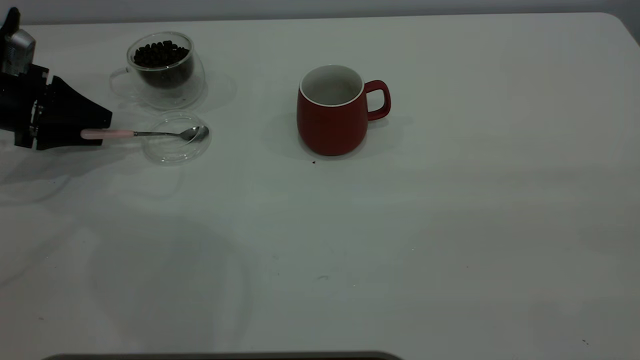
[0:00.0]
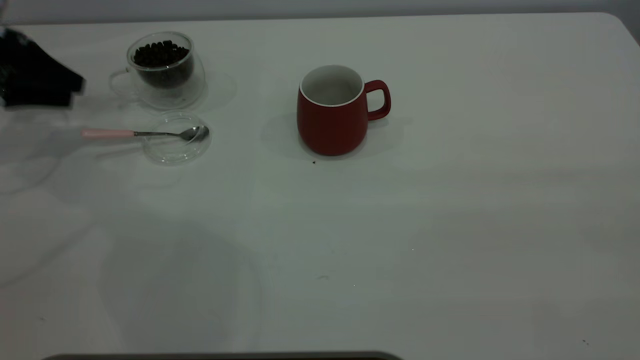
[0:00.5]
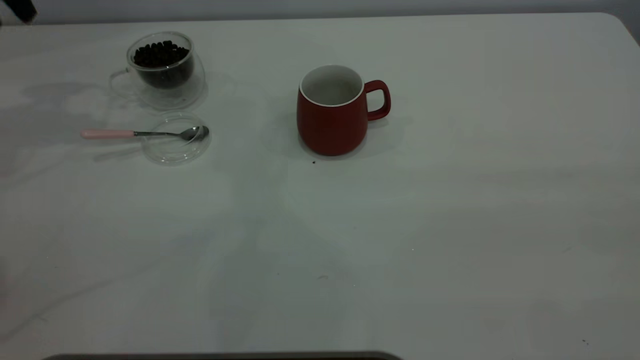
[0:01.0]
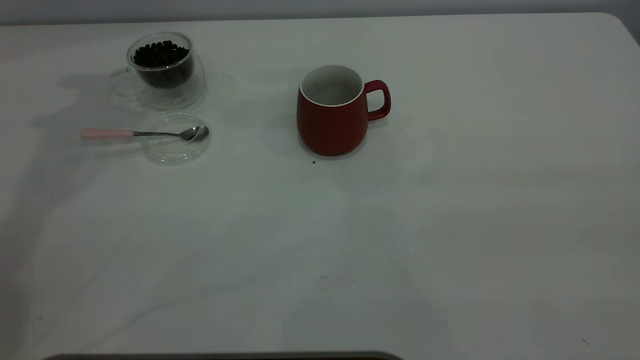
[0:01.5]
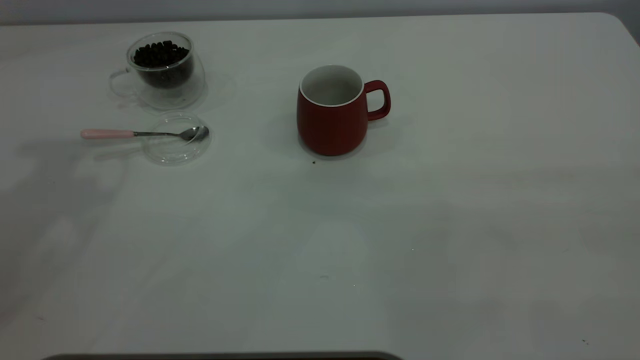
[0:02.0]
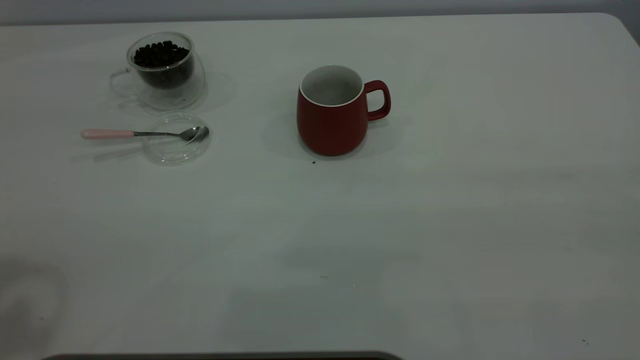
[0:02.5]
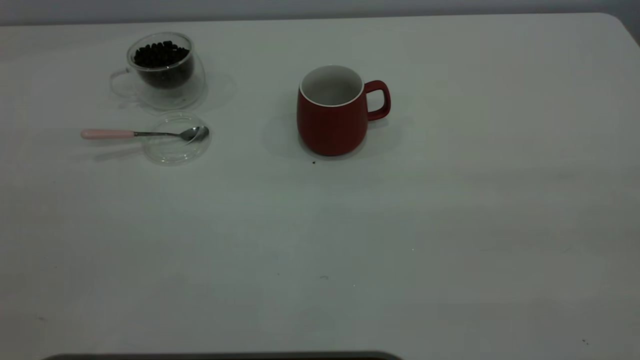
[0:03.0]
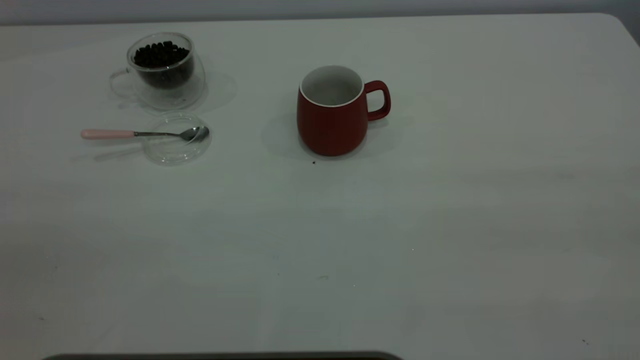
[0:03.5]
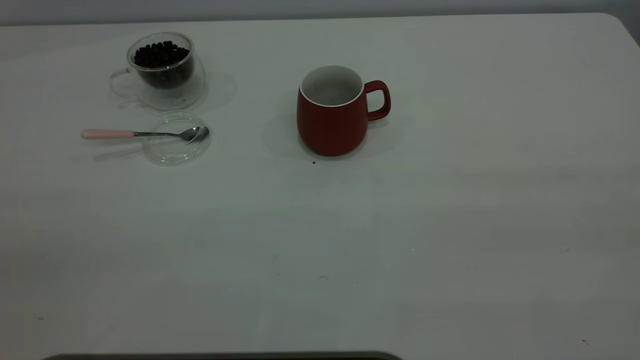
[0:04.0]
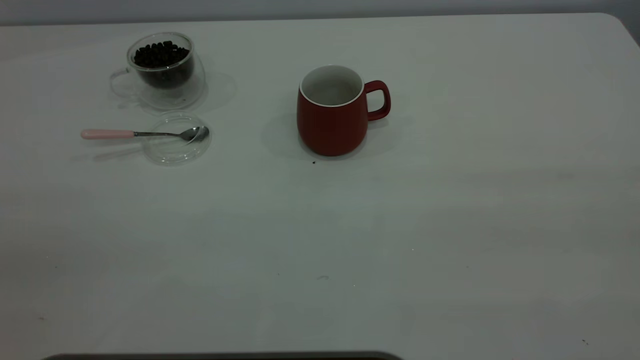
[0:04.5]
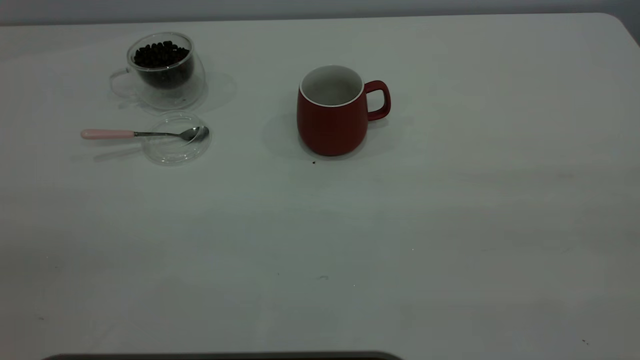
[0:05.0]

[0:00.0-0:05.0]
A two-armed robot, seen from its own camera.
Task of the whole recording: the right gripper place the red cup in the center of the table, the left gripper take the pink spoon from the cup lid and scoop out the coffee beans from the coffee cup and put them into the red cup, the left gripper put the spoon back into the cup lid.
0:00.0 to 0:02.5: The left gripper is displaced upward and backward by approximately 40 cm.

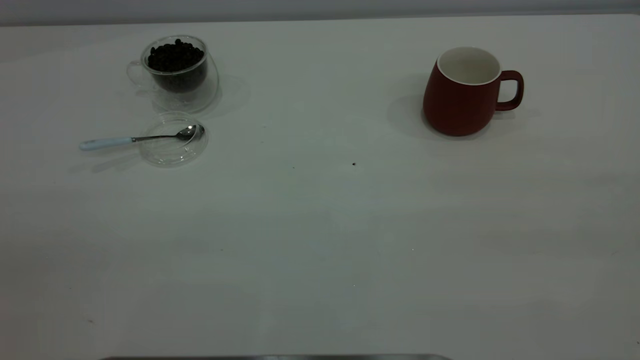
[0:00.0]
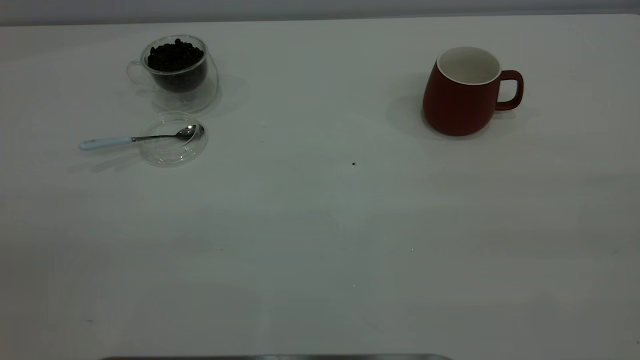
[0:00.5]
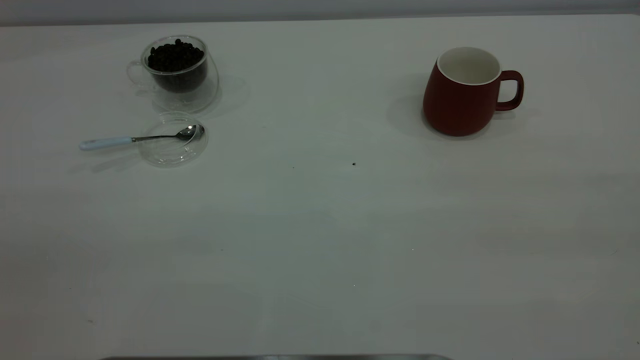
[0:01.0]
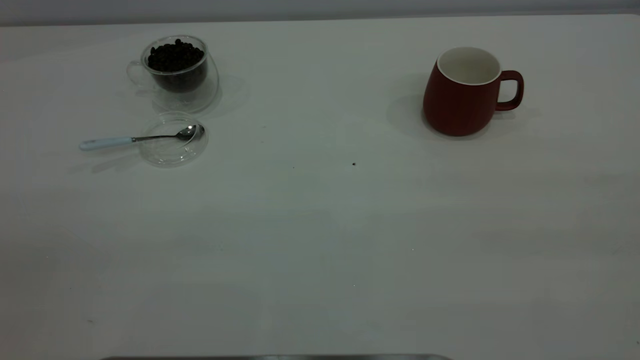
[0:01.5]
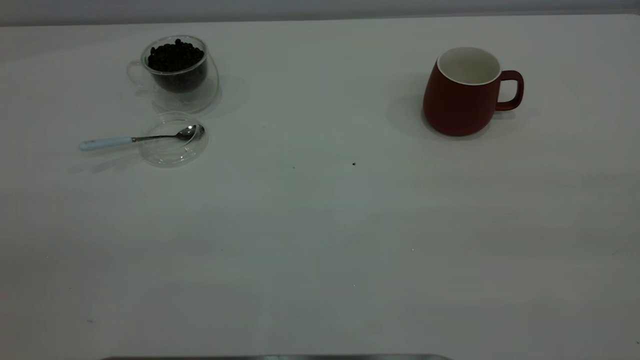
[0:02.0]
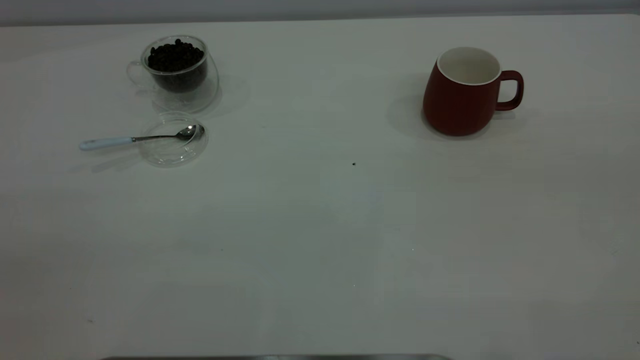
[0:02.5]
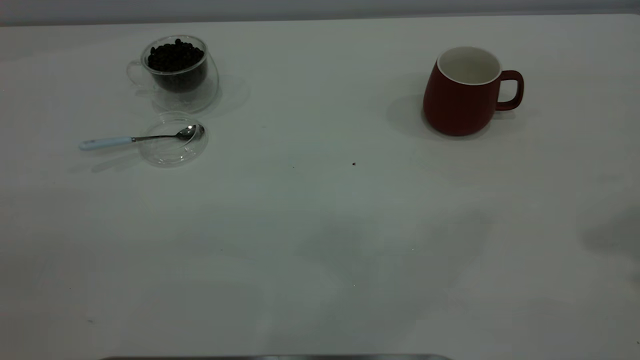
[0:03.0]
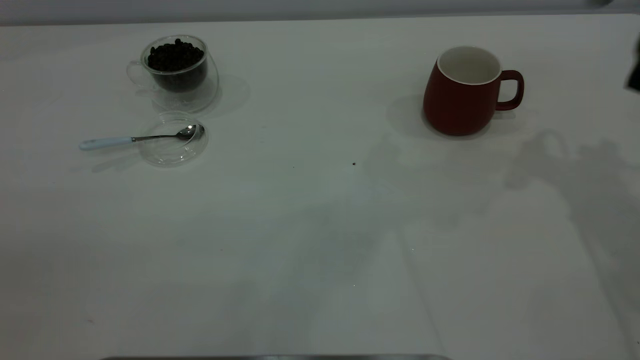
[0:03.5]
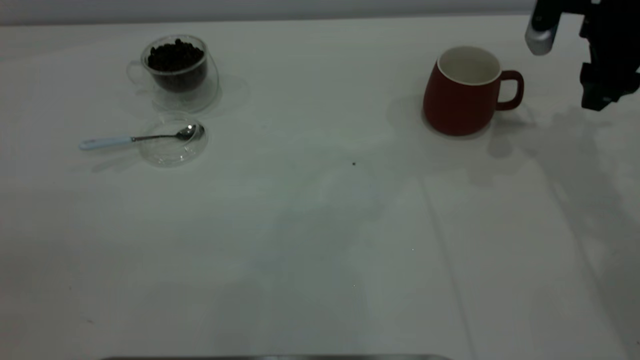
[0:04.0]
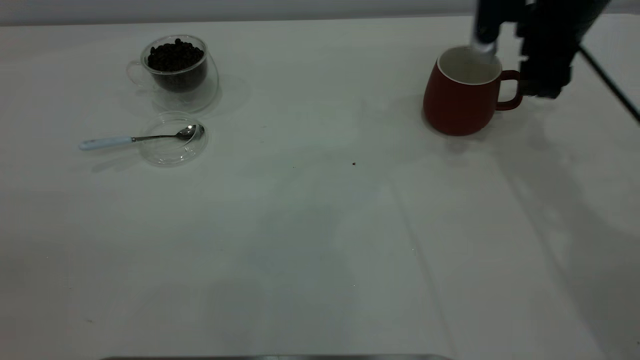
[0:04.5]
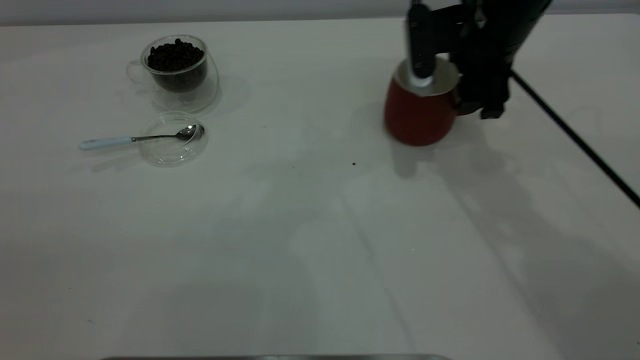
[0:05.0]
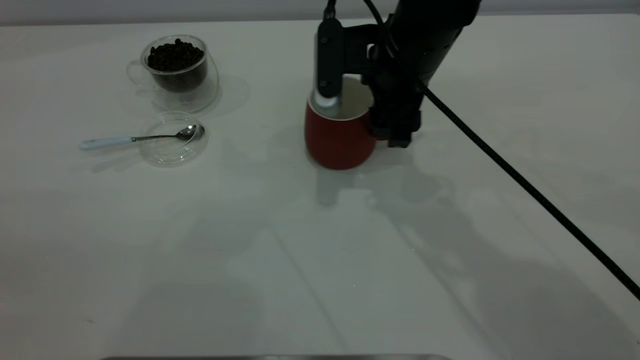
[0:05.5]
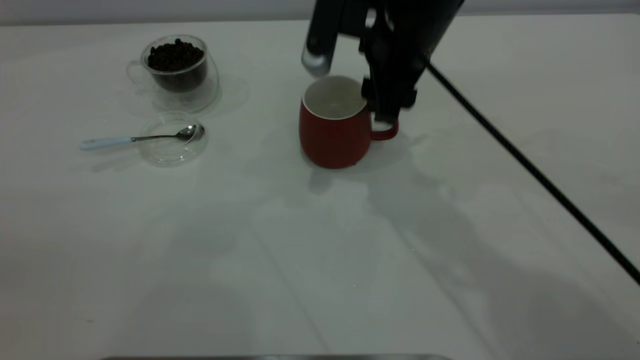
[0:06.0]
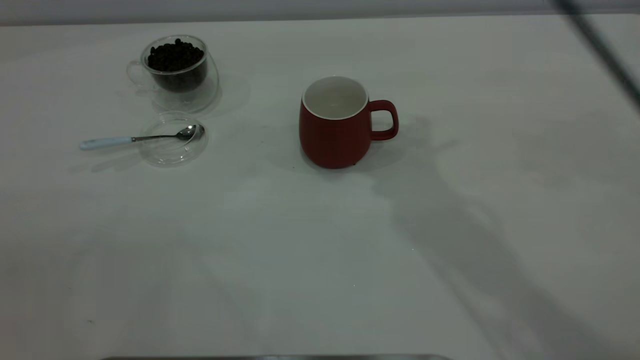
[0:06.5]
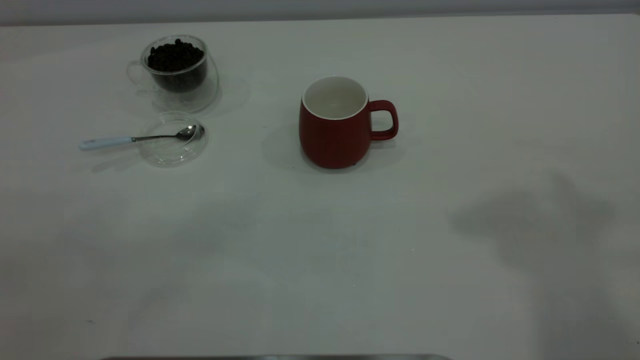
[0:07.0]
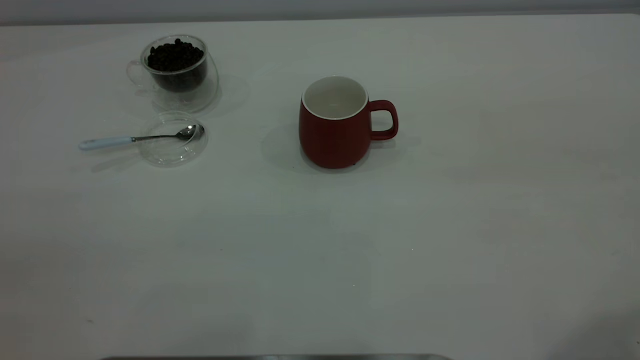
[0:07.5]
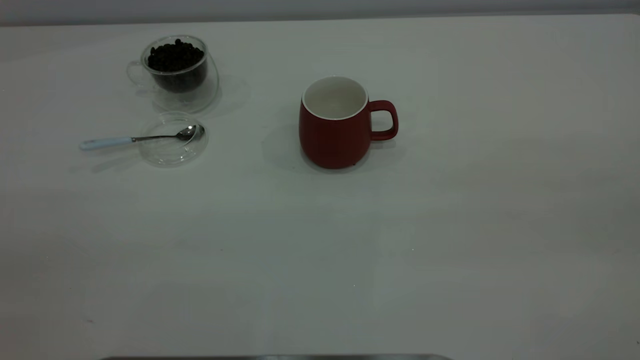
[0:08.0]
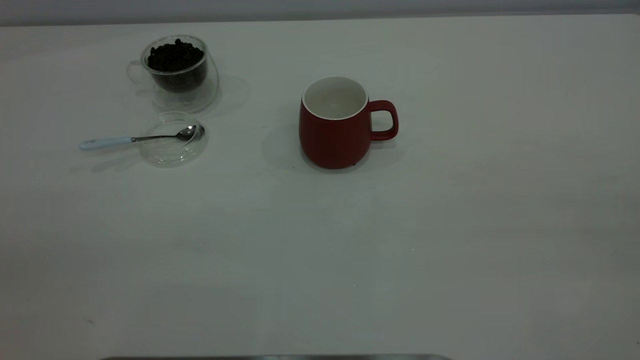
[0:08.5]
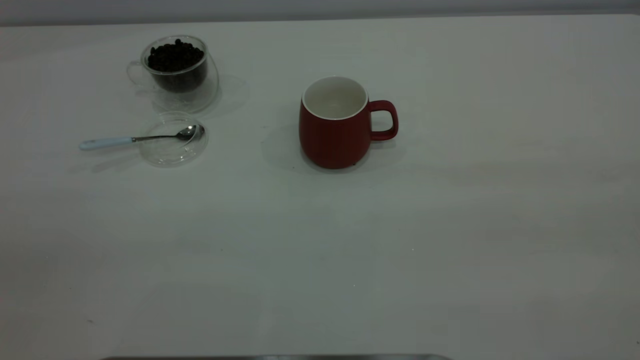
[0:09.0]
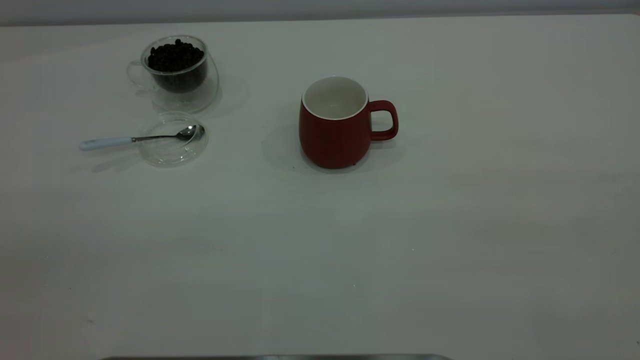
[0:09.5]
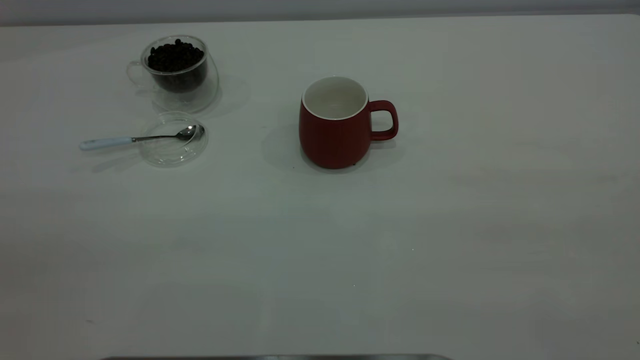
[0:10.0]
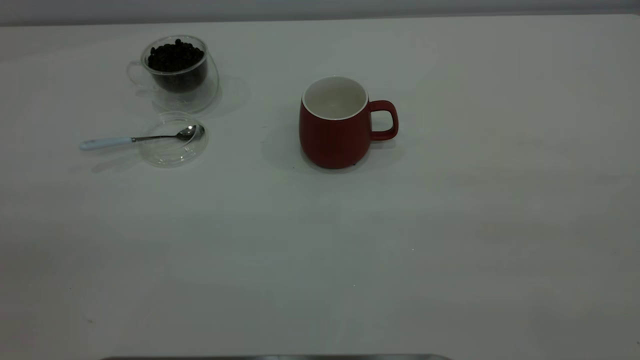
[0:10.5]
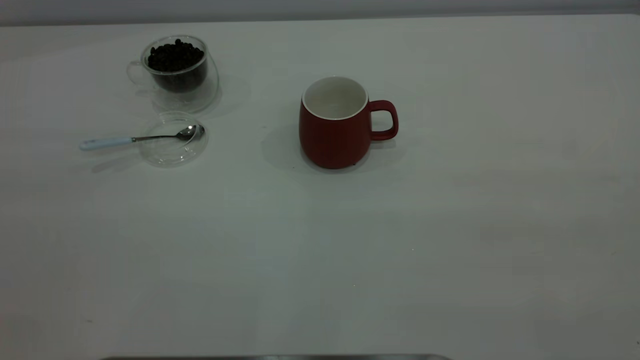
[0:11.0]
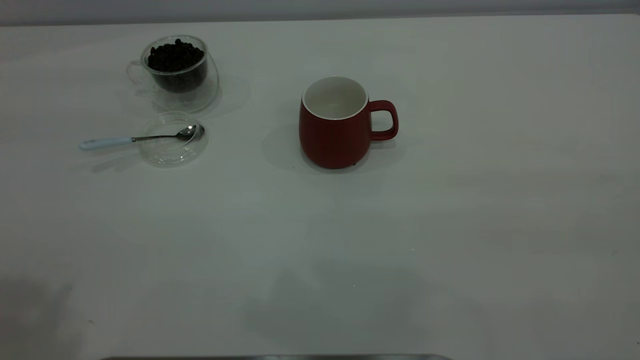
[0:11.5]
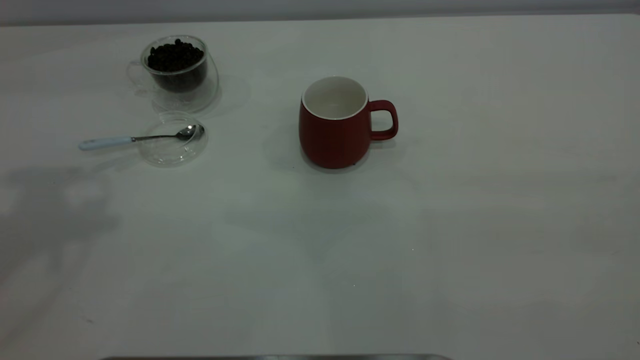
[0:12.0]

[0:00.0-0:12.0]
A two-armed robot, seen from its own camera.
Task of the whole recording: the right gripper place the red cup in the center of the table, the left gripper take the blue spoon from the cup lid and scoop out the coffee beans from the coffee cup and put them into the red cup, the left gripper put the spoon back into the cup lid.
Step, 0:00.0 to 0:06.0: Move the cup to the center of view.
0:00.0 to 0:02.0: Both grippers stay about where they are.
0:02.0 to 0:04.0: The right gripper shifts about 50 cm forward and downward, and opens.
0:04.0 to 0:06.0: The right gripper is displaced to the left by roughly 20 cm, and closes up.
0:06.0 to 0:08.0: The right gripper travels backward, to the right and upward by some 40 cm, and opens its fingers.

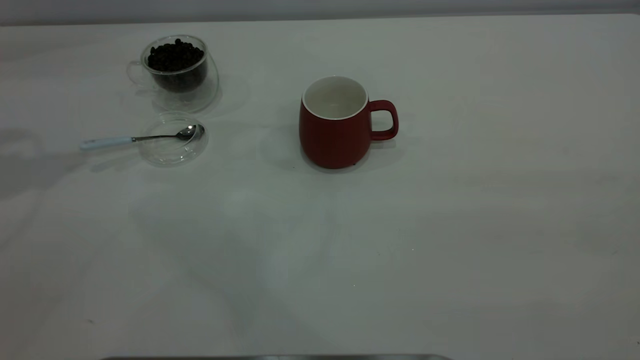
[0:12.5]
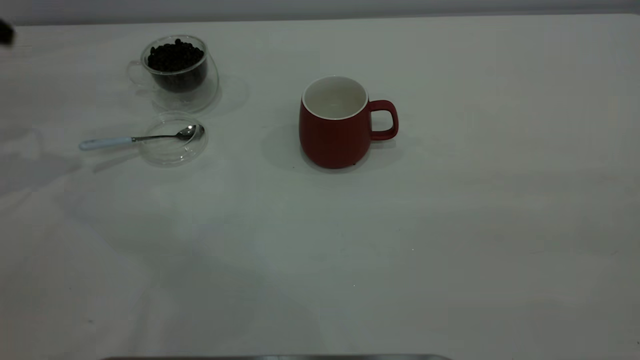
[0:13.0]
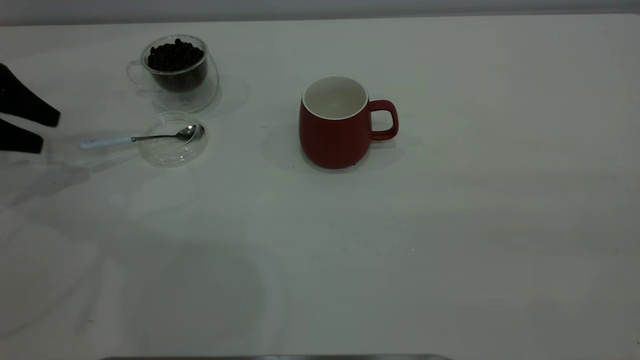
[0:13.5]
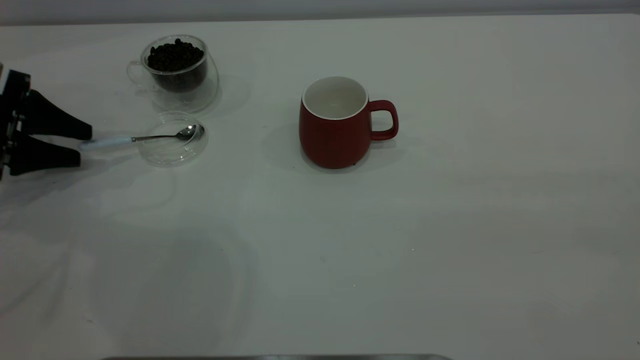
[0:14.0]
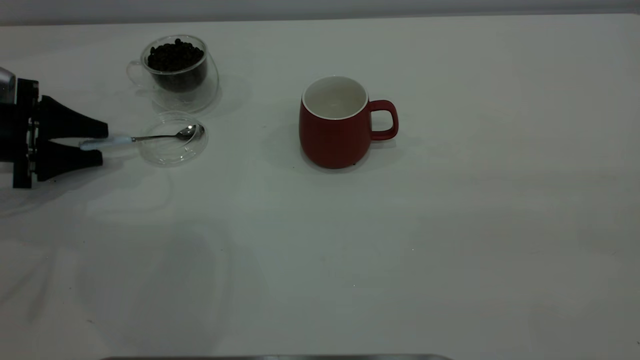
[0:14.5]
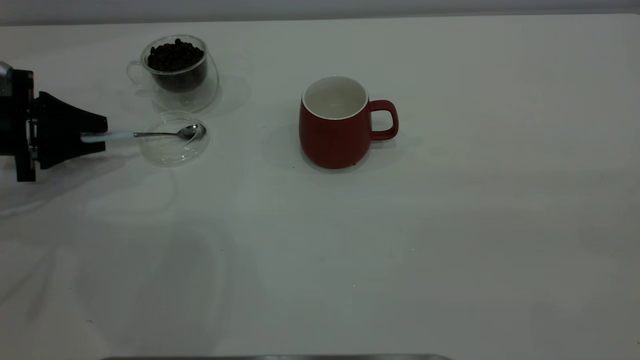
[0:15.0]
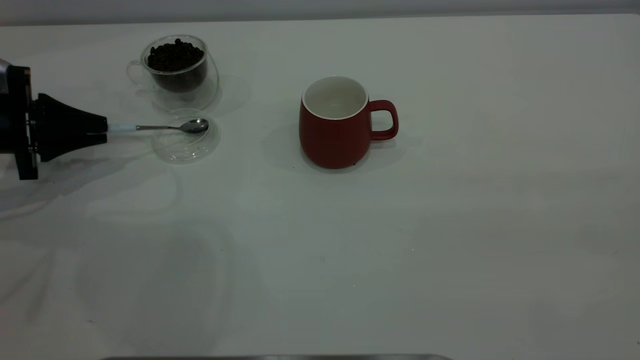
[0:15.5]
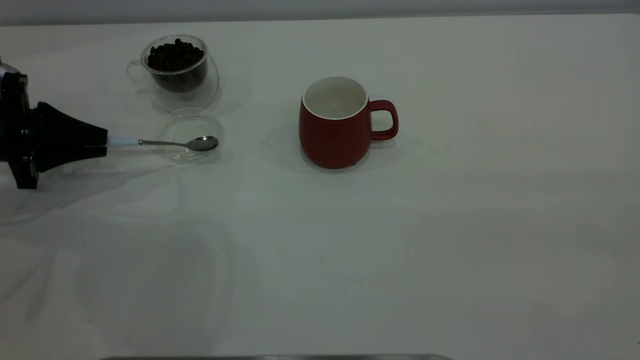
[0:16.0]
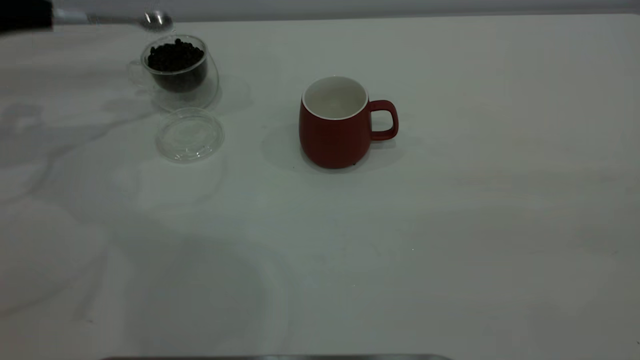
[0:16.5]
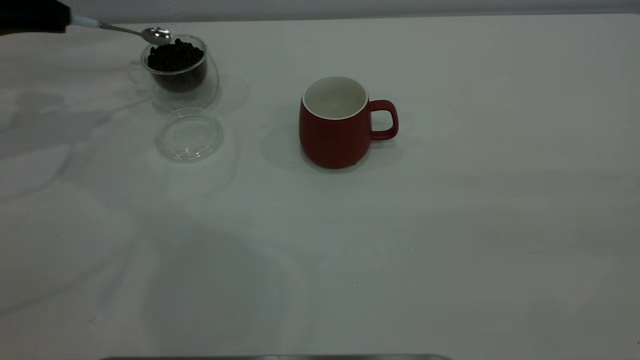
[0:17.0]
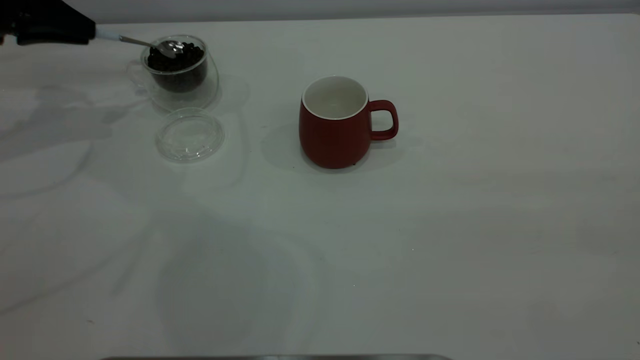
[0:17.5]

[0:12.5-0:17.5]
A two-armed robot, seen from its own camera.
Task of the whole recording: the right gripper place the red cup in the center of the table, the left gripper take the blue spoon from the cup lid and scoop out the coffee beans from the coffee cup and put them into the red cup, the left gripper put the spoon back into the cup lid.
Step, 0:12.5 to 0:16.0: Pick up the spoon.
0:12.5 to 0:15.0: The left gripper travels downward by roughly 30 cm, and closes.
0:15.0 to 0:17.5: The left gripper travels upward and forward by some 15 cm, and closes up.
